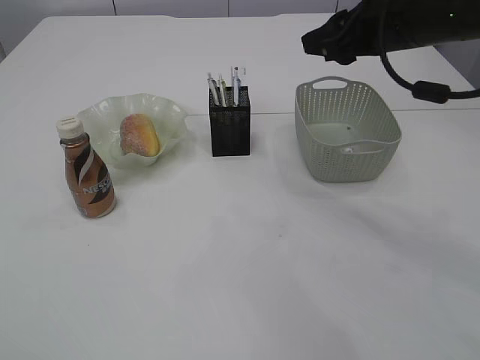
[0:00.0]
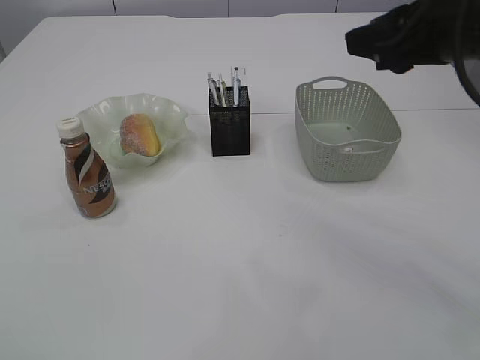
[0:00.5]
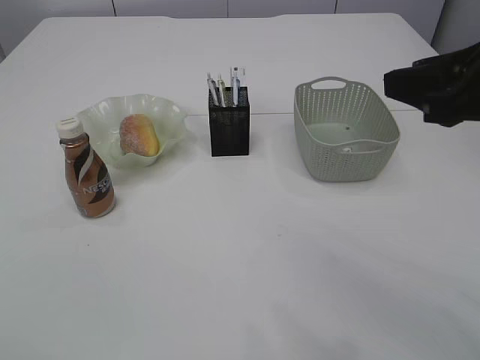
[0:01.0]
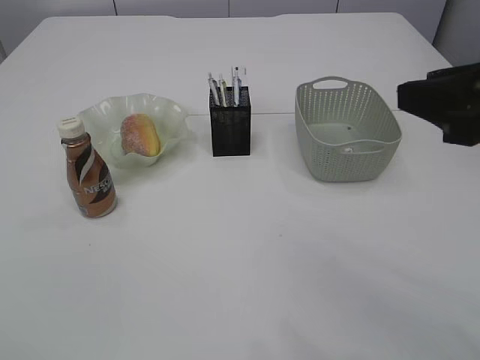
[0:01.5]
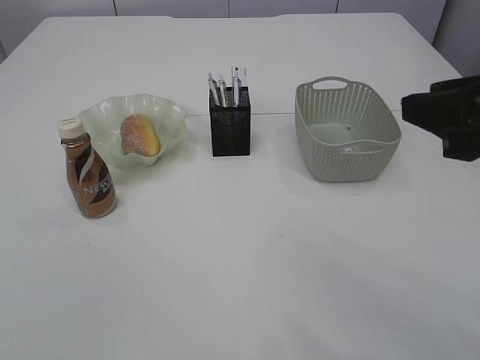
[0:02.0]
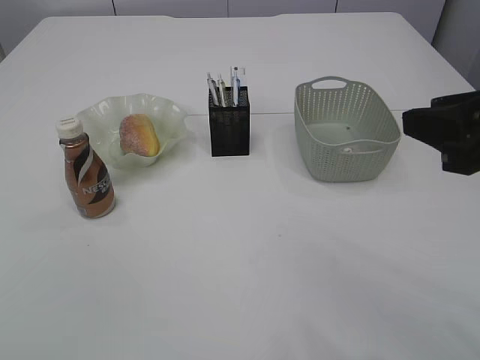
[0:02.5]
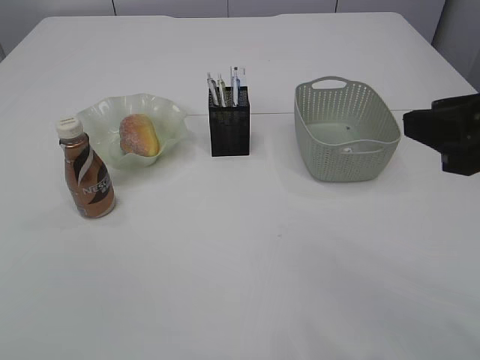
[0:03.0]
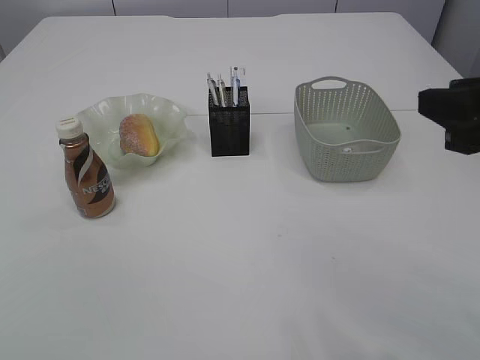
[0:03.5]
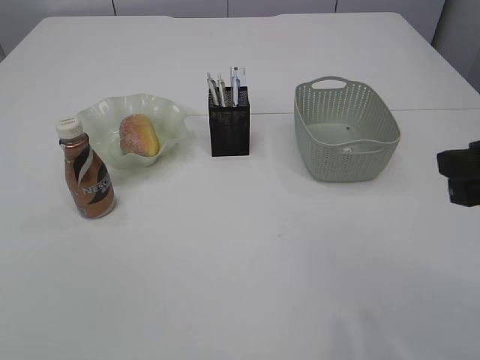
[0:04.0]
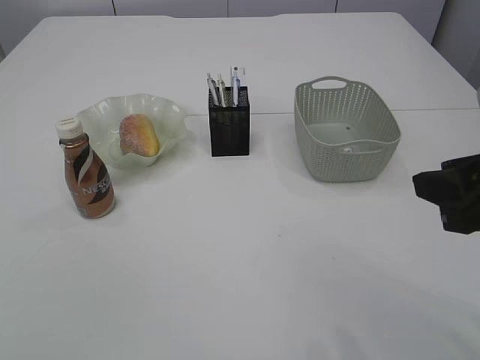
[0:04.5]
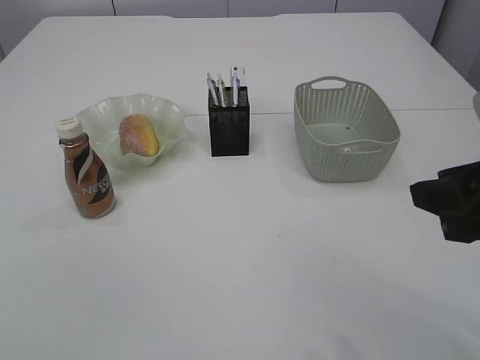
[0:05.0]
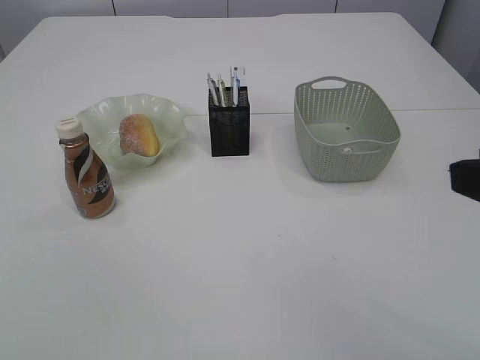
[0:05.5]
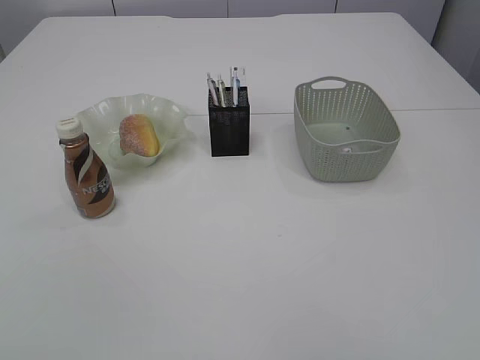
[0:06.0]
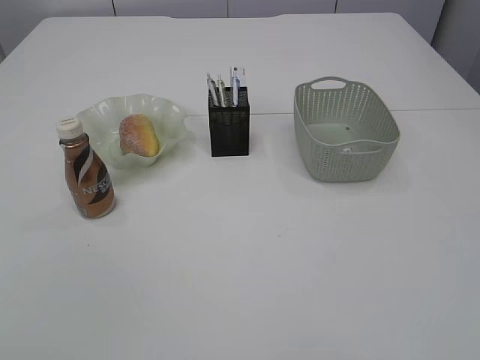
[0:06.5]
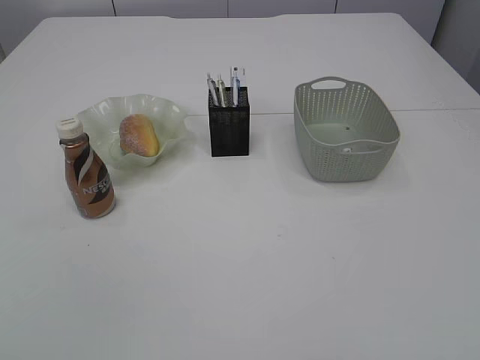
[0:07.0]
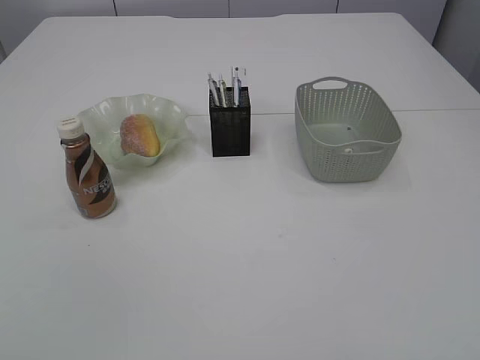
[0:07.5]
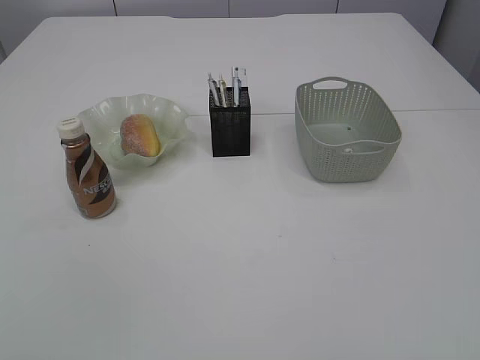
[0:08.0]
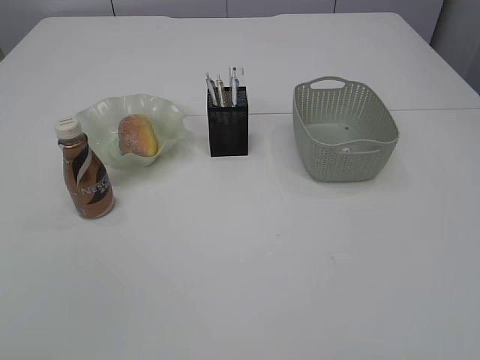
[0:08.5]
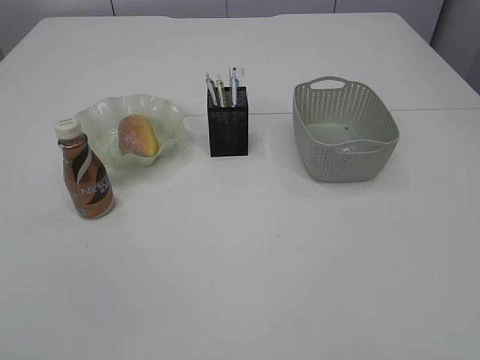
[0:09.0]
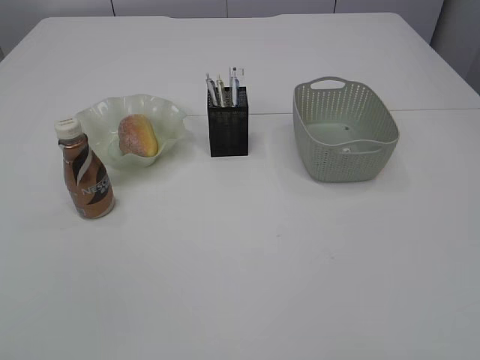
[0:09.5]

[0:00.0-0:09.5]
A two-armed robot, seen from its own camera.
0:00.0 to 0:02.0: The right gripper moves backward, some 20 cm.
0:02.0 to 0:04.0: The grippers move only a little.
0:04.0 to 0:05.5: The right gripper travels backward by roughly 5 cm.
0:05.5 to 0:07.5: The right gripper moves backward, roughly 15 cm.
0:07.5 to 0:09.5: The grippers move only a little.
